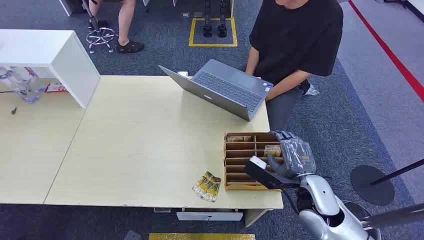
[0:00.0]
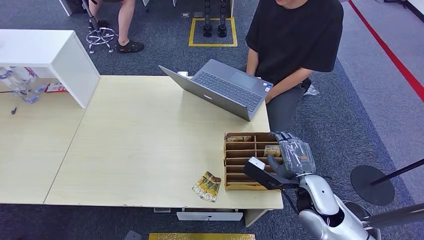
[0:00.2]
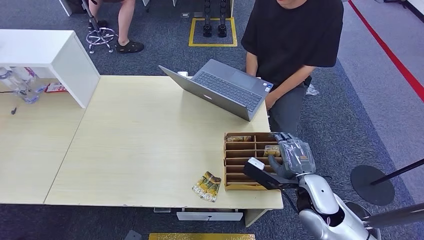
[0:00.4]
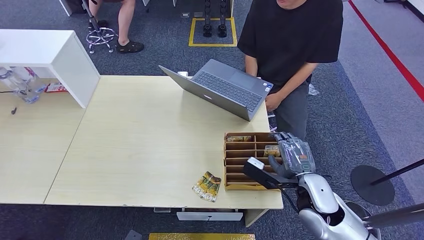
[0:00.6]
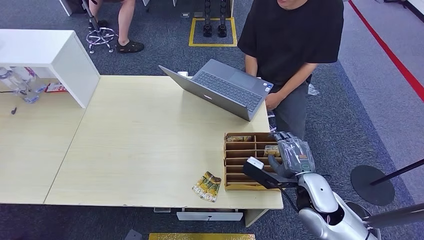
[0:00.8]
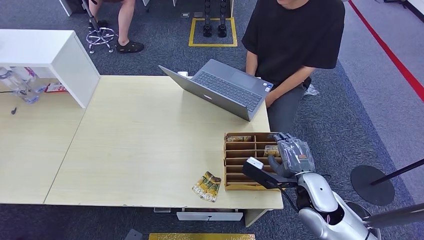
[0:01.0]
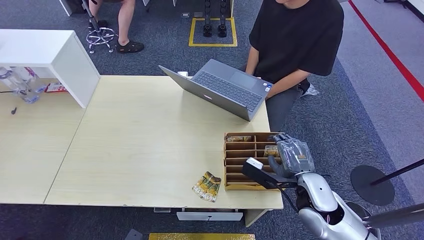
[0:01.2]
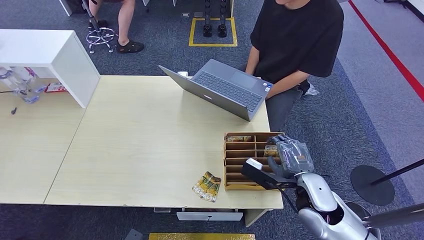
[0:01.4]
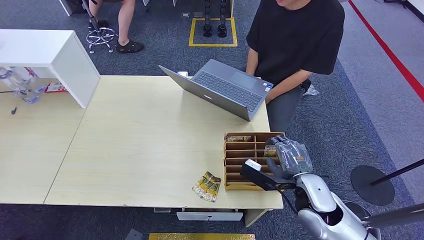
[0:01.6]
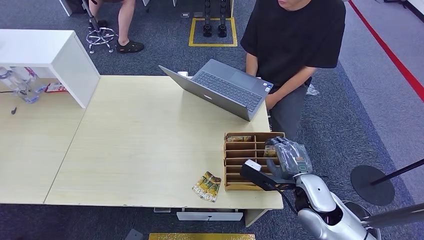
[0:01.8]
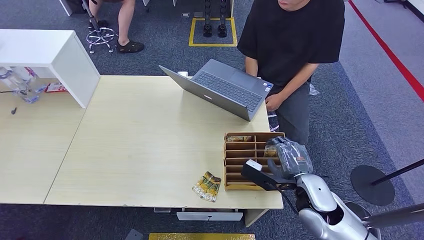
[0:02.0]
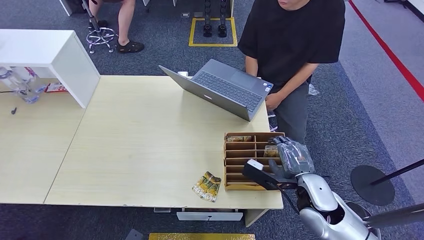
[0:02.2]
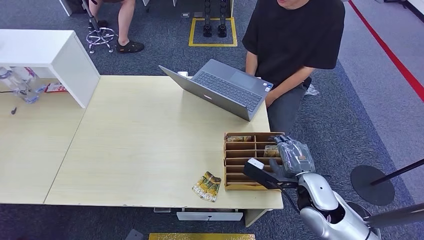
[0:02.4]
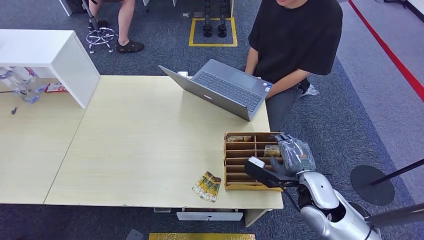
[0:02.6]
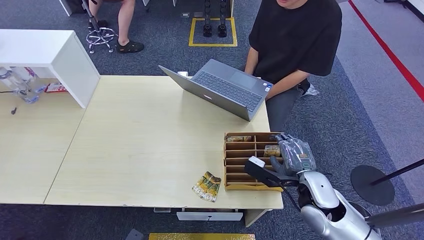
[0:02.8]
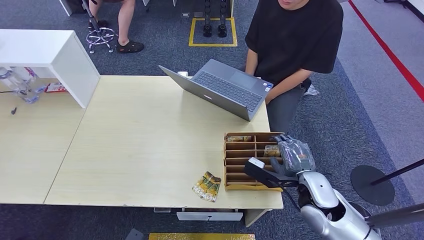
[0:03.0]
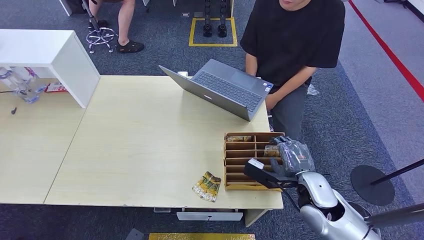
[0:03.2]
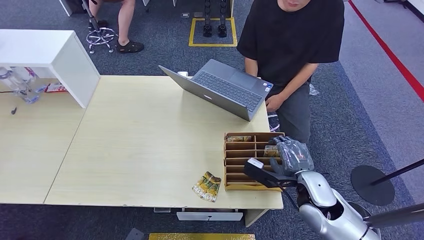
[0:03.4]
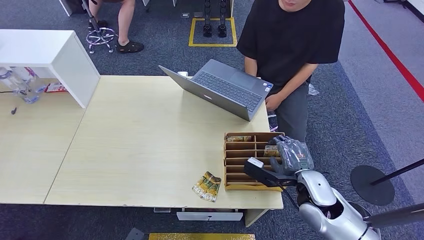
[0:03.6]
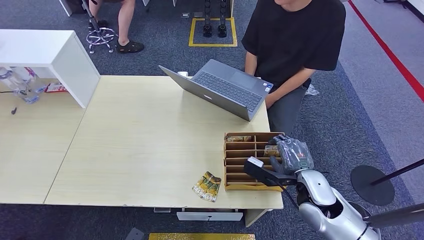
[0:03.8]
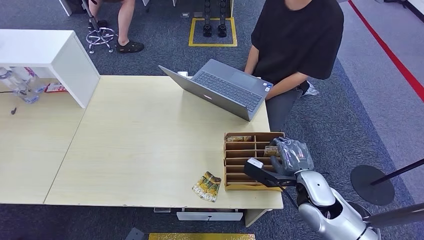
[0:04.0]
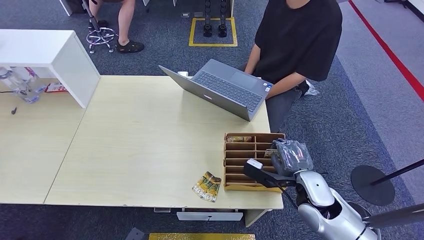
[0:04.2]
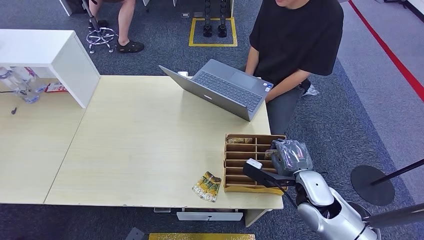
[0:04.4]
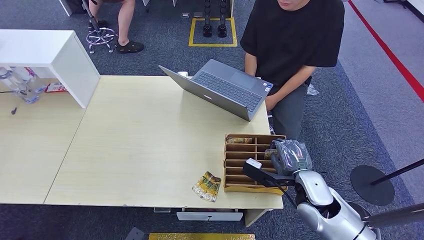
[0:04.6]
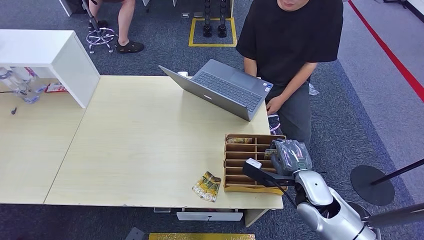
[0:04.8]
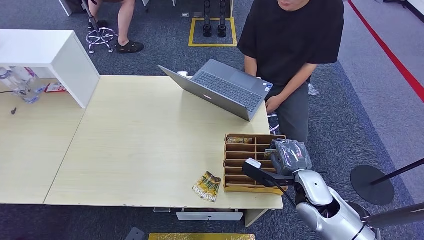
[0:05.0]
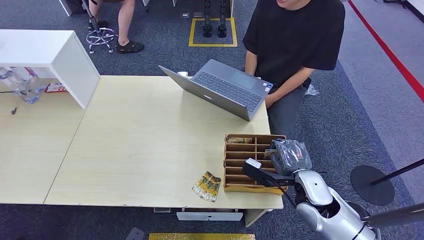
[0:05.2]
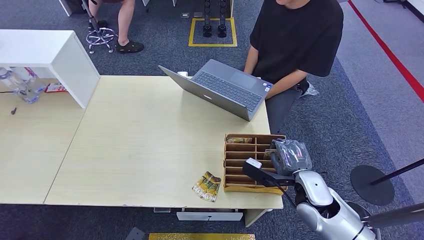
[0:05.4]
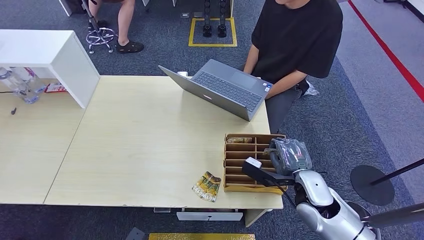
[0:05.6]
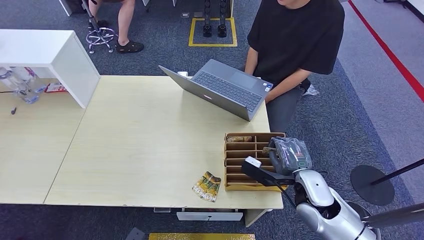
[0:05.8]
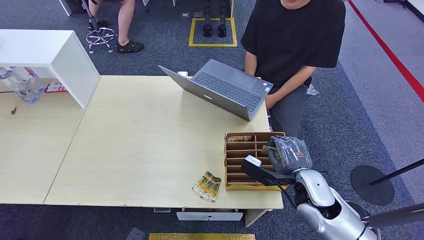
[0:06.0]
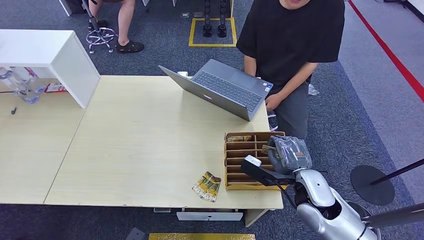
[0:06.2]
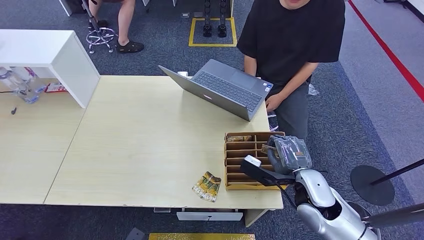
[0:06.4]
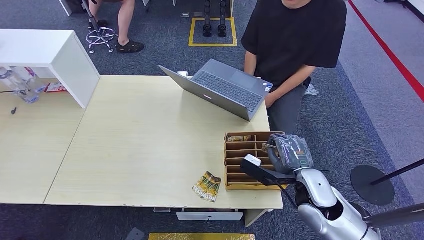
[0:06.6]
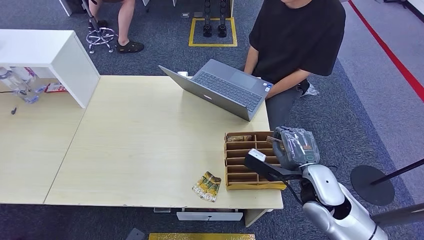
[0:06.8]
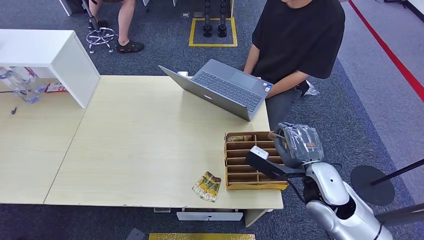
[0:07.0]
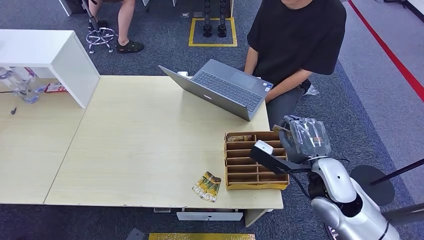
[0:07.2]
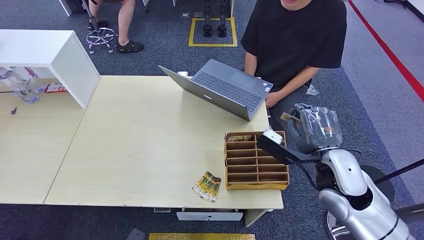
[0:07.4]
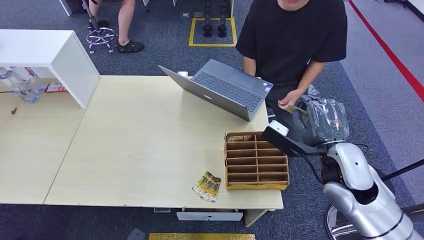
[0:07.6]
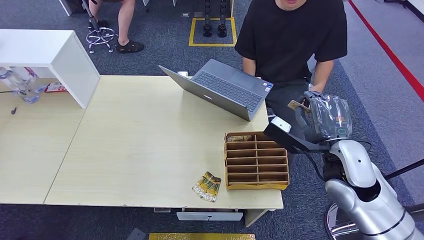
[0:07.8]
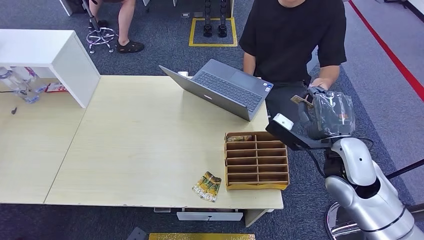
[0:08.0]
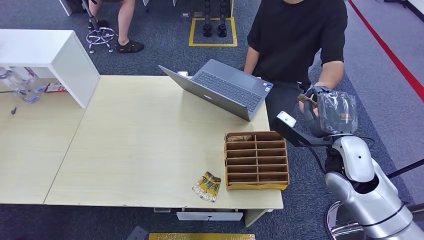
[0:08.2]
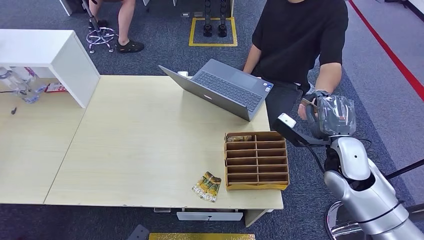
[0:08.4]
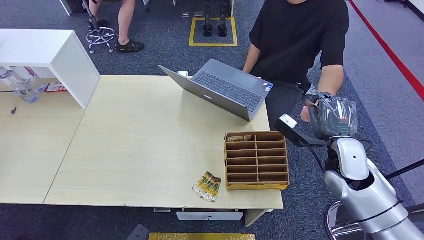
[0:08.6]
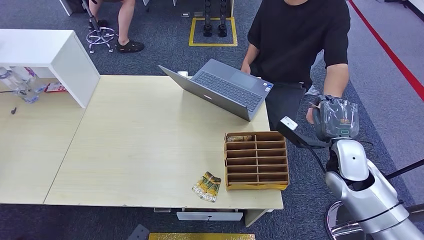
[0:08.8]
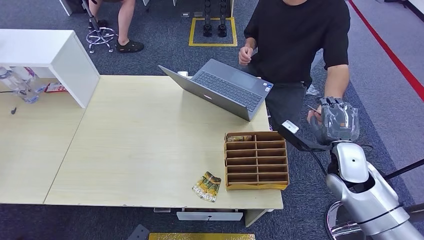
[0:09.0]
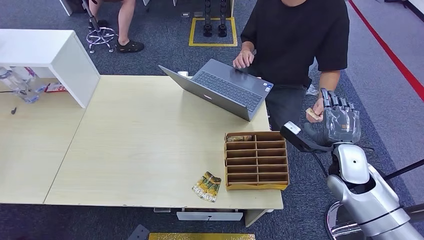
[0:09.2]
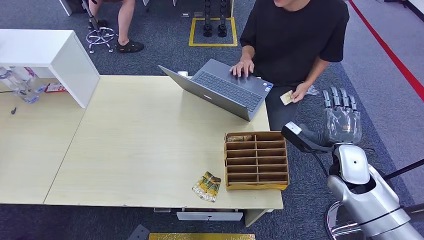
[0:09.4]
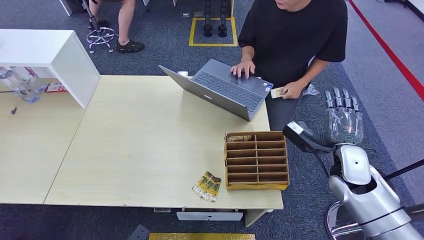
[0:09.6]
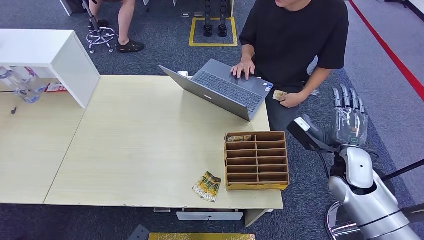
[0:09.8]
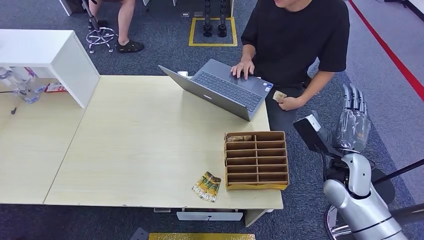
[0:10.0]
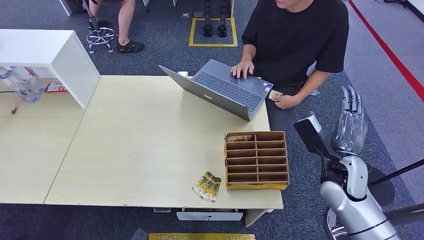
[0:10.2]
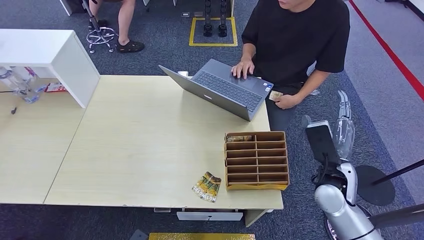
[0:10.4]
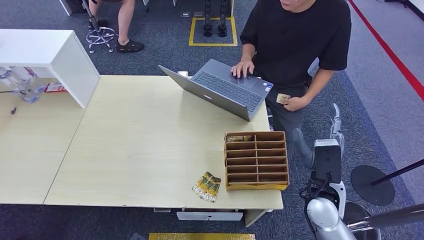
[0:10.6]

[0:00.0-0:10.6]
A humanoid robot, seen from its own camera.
Step, 0:00.0 to 0:06.4: Pick up the room card from the card holder.
Step, 0:06.6 to 0:10.6: Hand the room card to the target.
0:01.6 to 0:03.0: The two hands keep their place.
0:03.0 to 0:06.0: The hands stay close to where they were, moving slightly.
0:06.0 to 0:07.6: The right hand travels upward by about 10 cm.
0:07.6 to 0:09.0: The right hand heads downward and to the right, covering approximately 10 cm.
0:09.0 to 0:10.6: The right hand shifts roughly 10 cm to the left and backward.
